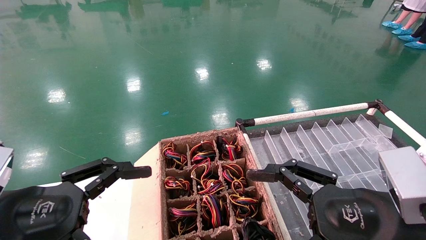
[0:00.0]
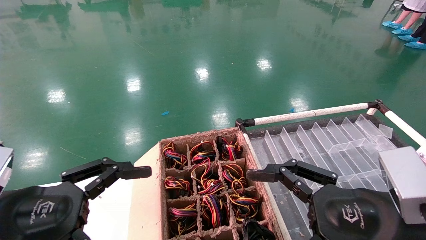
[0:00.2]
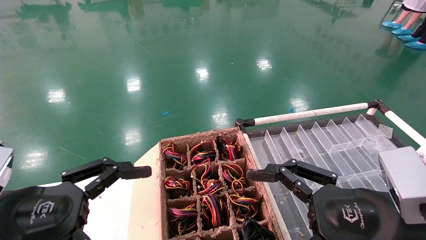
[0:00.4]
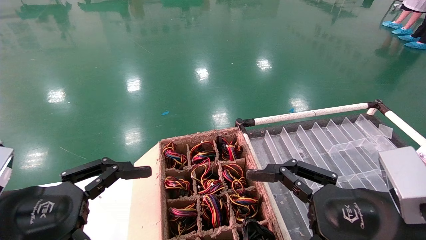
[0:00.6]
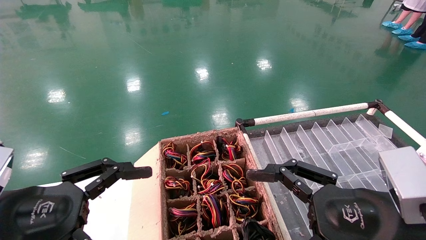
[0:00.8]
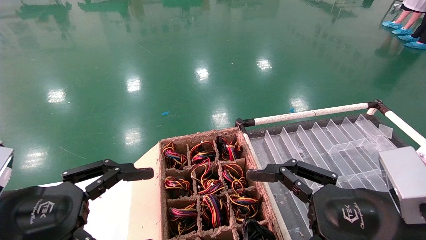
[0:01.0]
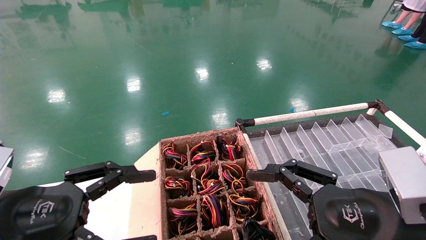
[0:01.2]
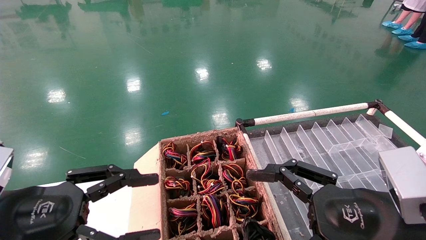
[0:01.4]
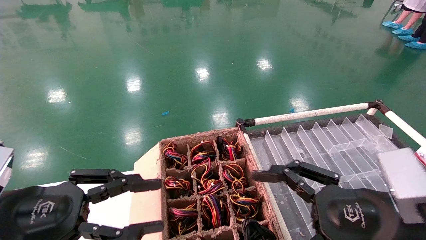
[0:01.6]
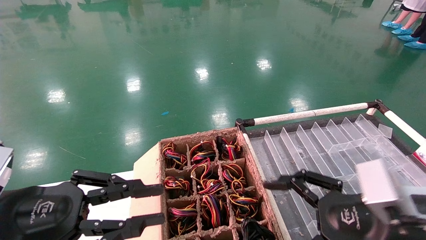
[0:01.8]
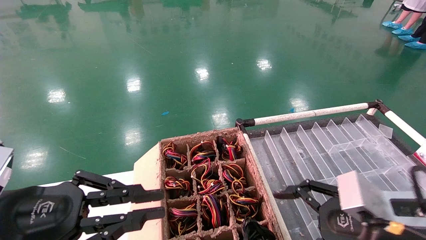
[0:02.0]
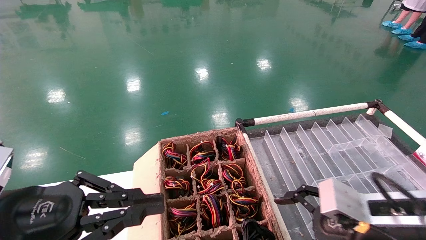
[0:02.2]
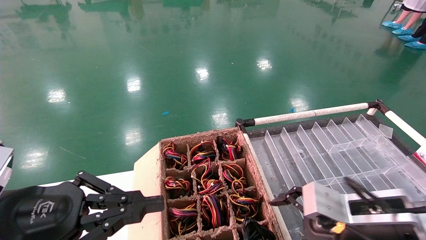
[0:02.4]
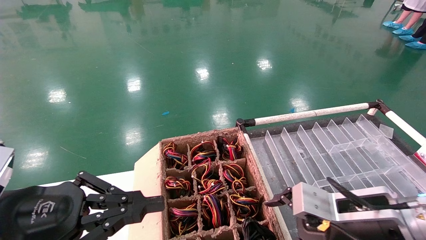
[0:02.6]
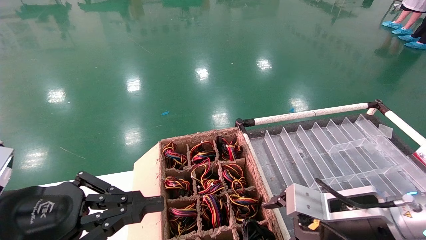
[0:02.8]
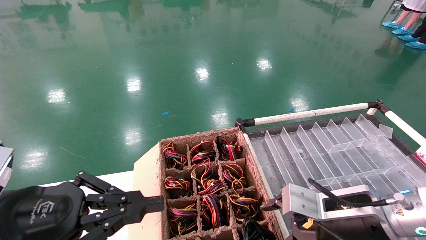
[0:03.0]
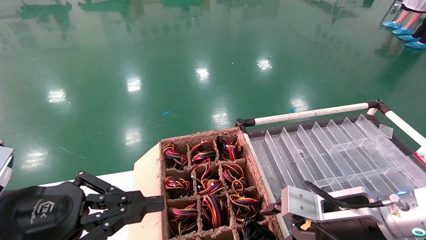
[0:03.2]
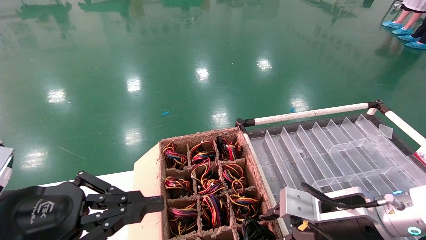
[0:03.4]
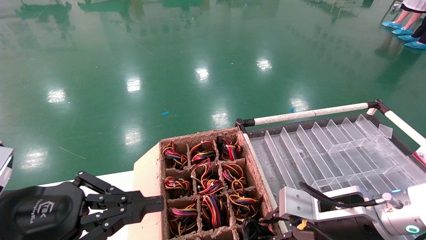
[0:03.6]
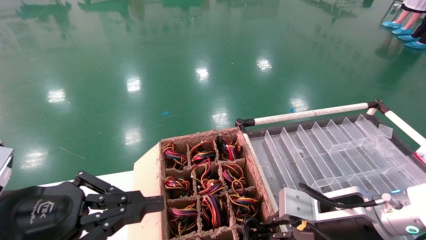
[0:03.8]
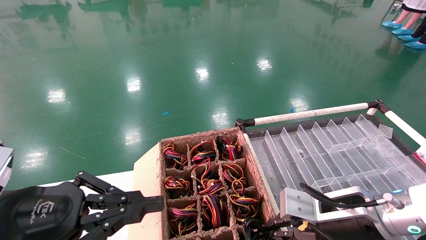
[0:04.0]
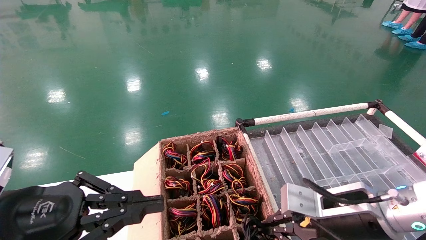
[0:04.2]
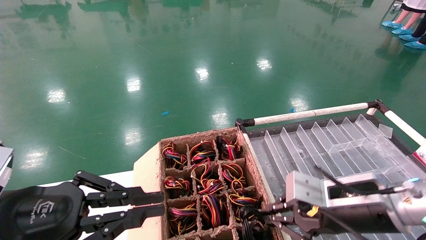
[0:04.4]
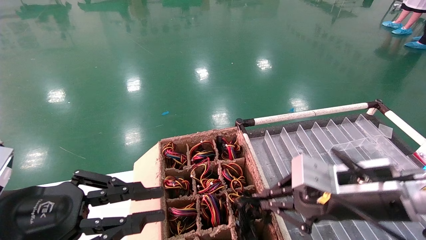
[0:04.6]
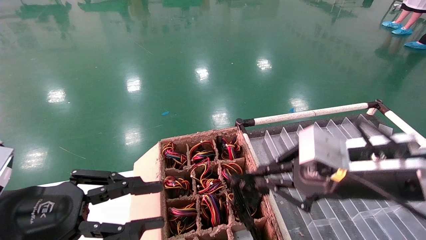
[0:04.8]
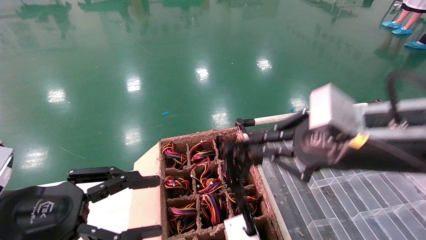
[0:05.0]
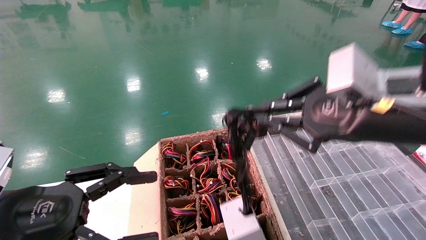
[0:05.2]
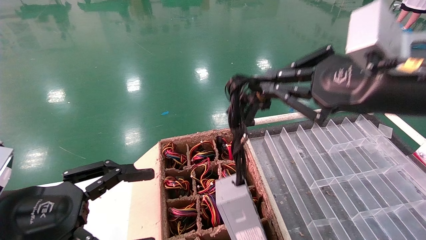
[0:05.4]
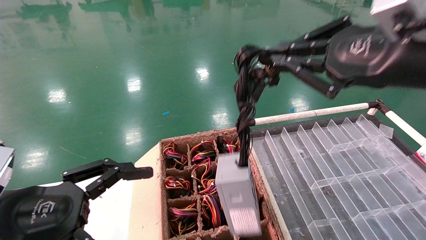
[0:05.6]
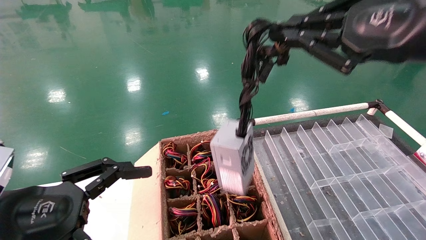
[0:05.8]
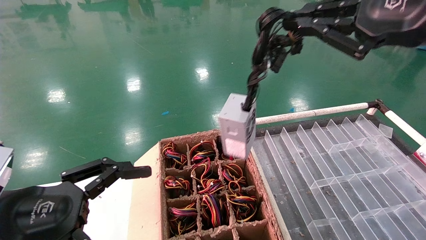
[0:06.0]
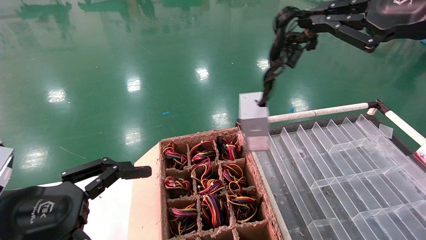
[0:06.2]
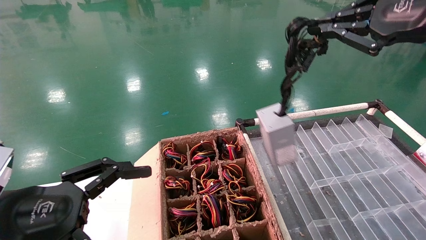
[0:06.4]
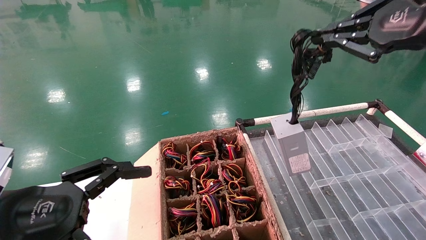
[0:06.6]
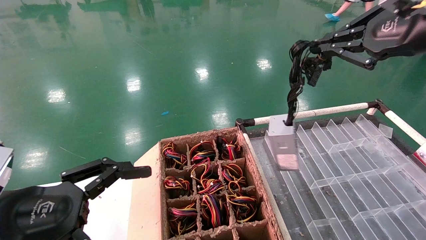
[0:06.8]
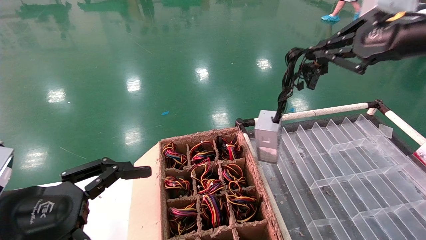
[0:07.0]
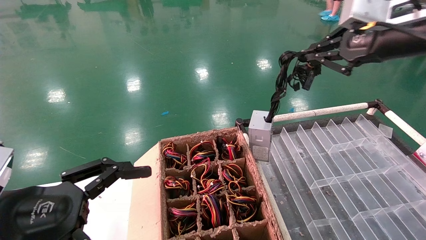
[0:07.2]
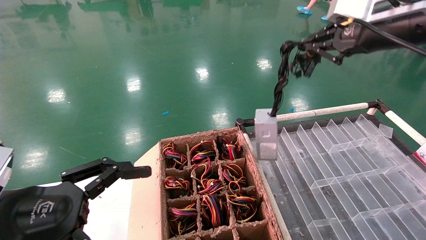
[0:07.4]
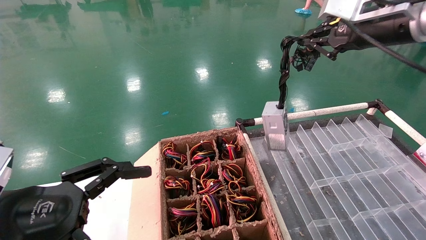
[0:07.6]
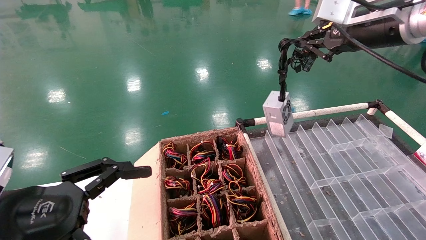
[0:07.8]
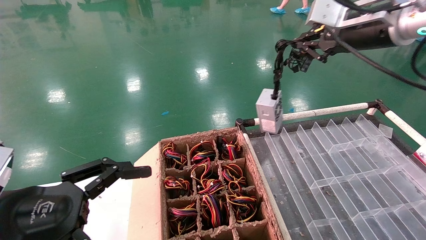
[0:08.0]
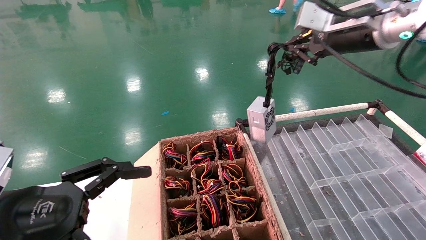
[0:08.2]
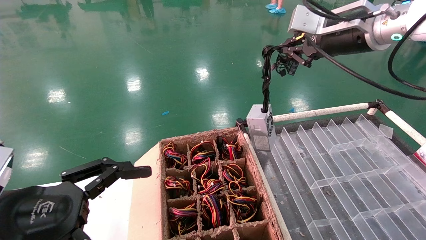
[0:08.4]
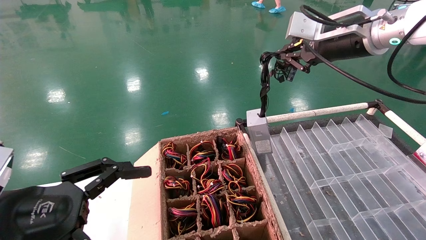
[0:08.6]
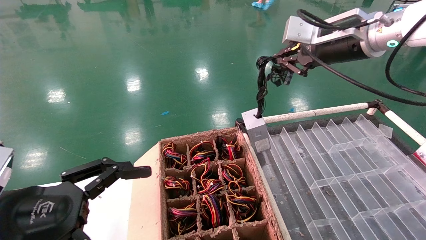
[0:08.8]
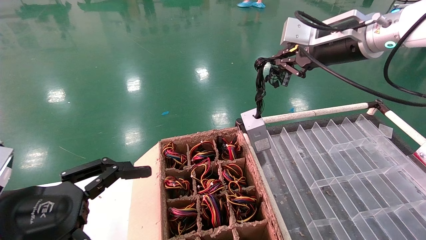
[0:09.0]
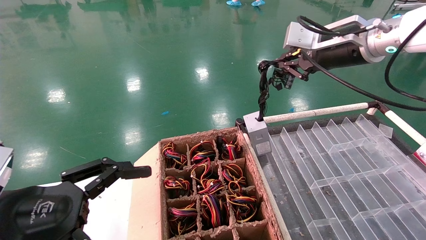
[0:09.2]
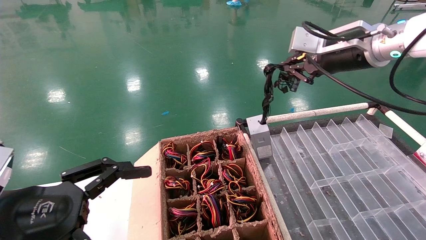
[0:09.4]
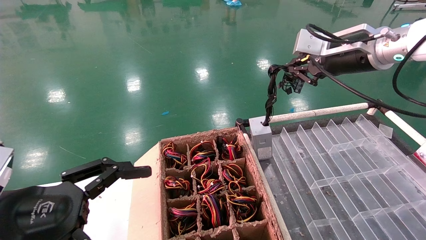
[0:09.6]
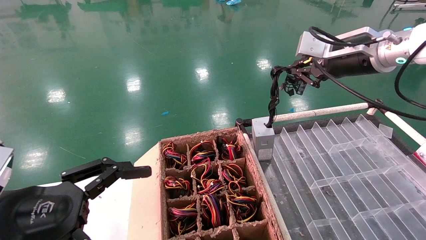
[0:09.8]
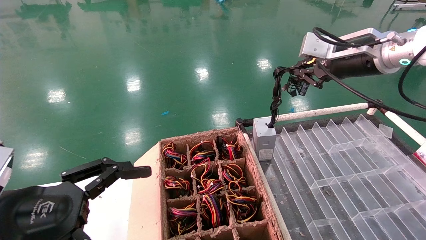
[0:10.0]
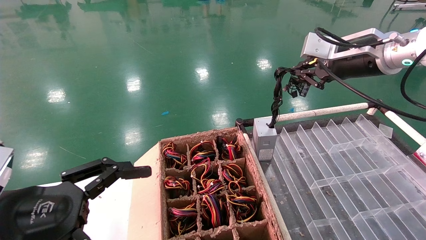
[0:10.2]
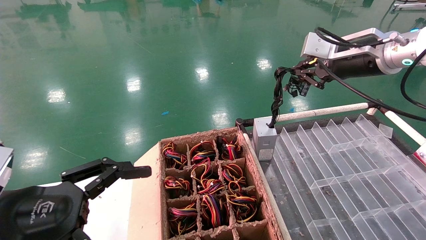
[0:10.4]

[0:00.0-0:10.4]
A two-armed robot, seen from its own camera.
Step, 0:01.2 to 0:04.0: Grab and lift the power supply from the large box.
0:00.0 to 0:01.4: Neither gripper changes place.
0:01.4 to 0:03.0: The right gripper travels forward by approximately 10 cm. The left gripper closes its fingers.
0:03.0 to 0:04.4: The right gripper closes.
0:04.4 to 0:06.0: The left gripper opens its fingers. Meanwhile the right gripper travels upward by some 25 cm.
0:06.0 to 0:07.4: The right gripper moves forward, some 10 cm.
0:07.4 to 0:09.0: The right gripper moves to the left, about 5 cm.
0:09.0 to 0:10.4: The grippers make only small movements.

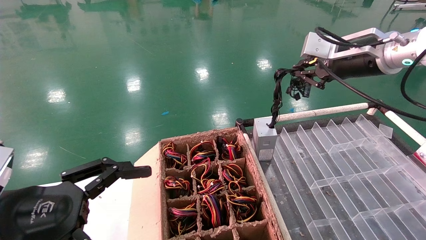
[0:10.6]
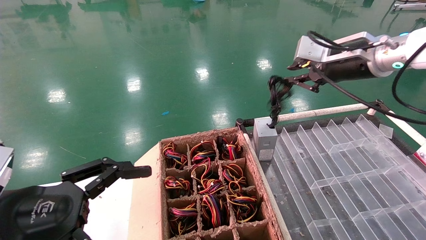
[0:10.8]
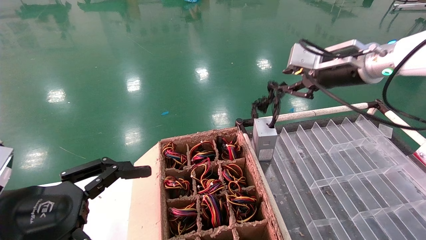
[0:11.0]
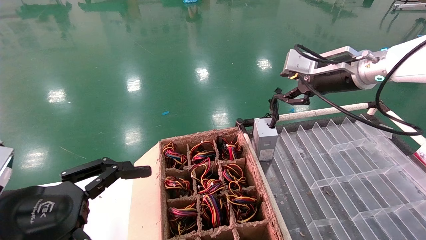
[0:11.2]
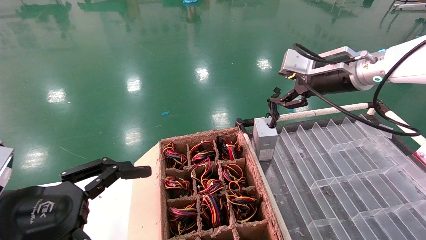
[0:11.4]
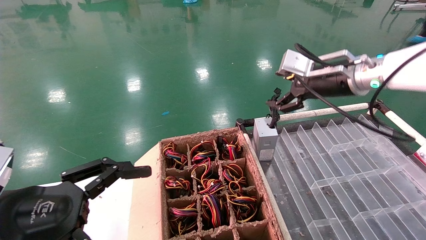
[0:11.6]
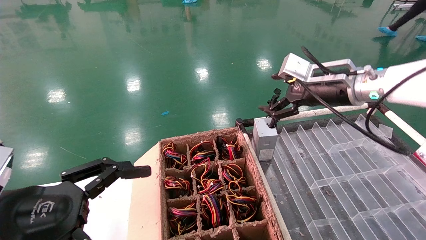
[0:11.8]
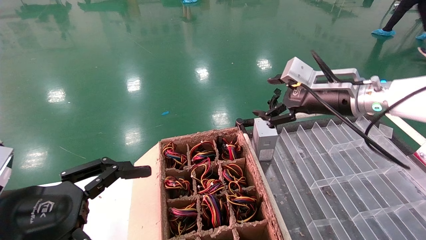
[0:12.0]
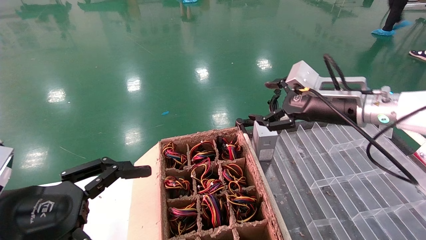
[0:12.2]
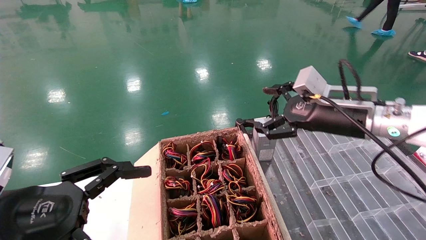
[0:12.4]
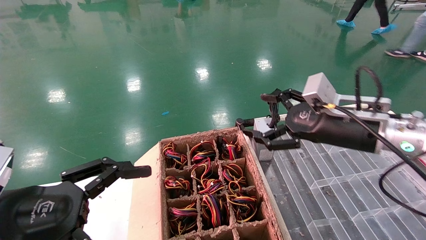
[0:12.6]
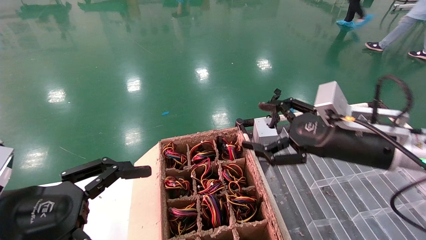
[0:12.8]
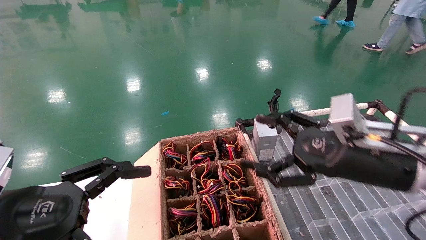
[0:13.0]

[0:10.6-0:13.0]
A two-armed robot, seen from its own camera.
0:10.6 to 0:11.8: The right gripper moves downward, some 5 cm, and opens.
0:11.8 to 0:13.0: The right gripper heads backward and downward, covering approximately 15 cm.
